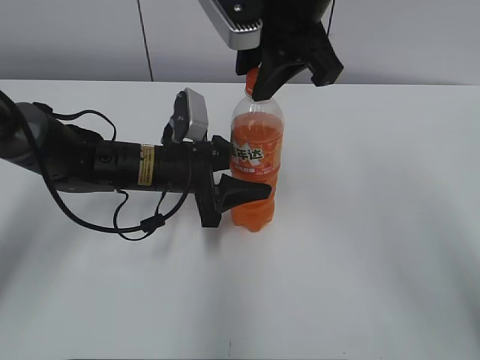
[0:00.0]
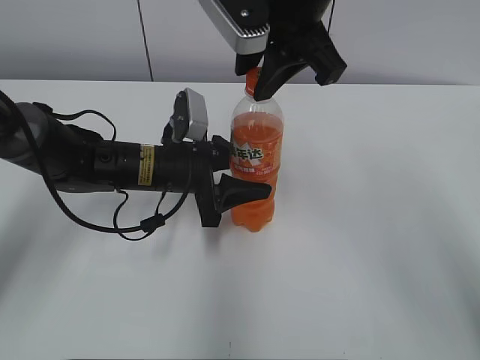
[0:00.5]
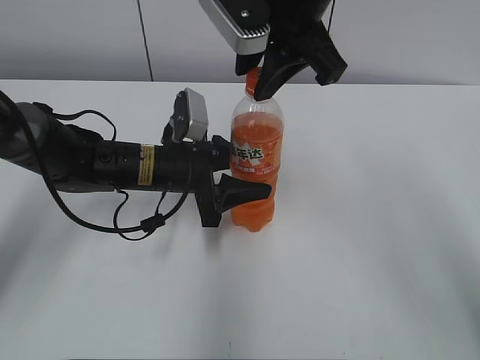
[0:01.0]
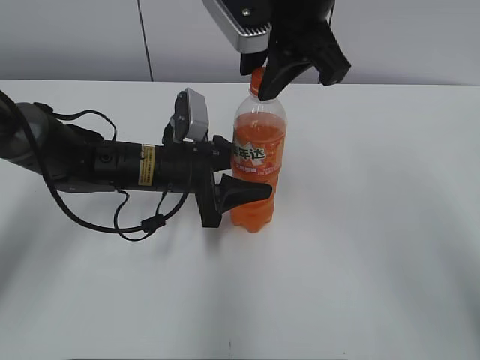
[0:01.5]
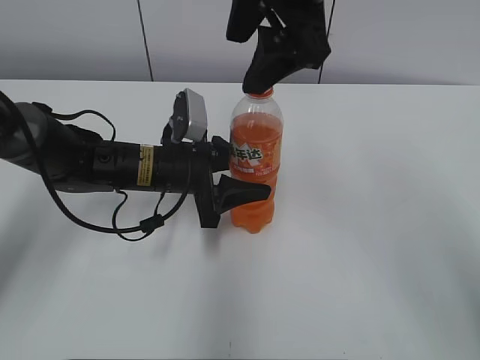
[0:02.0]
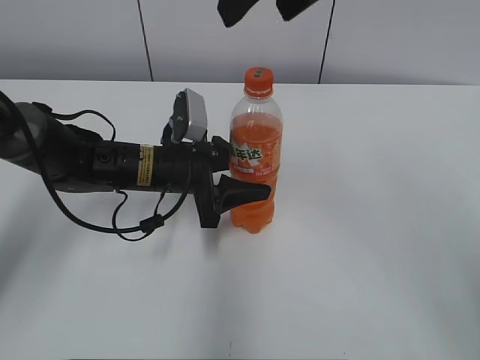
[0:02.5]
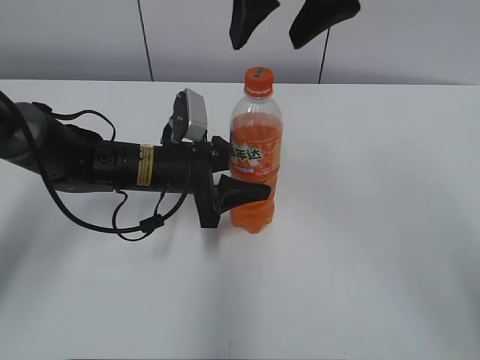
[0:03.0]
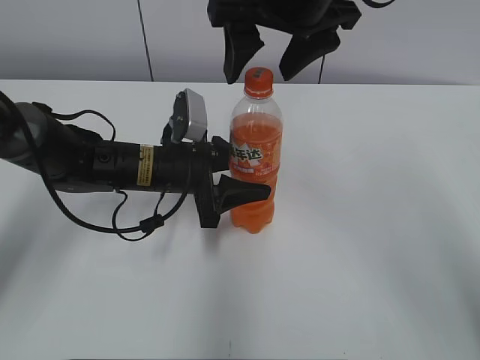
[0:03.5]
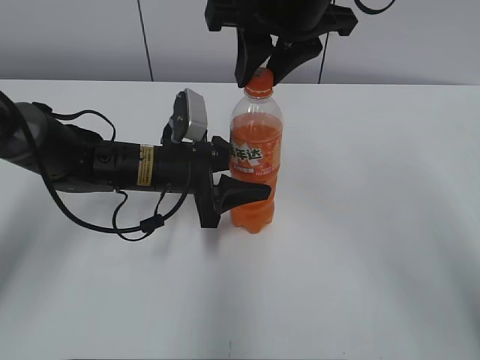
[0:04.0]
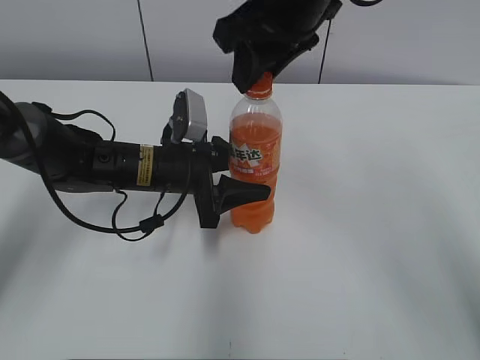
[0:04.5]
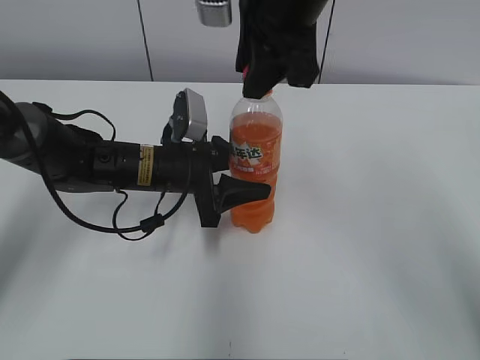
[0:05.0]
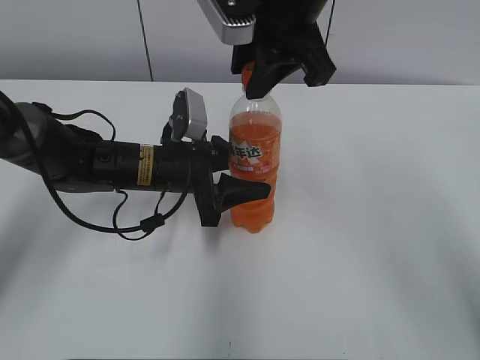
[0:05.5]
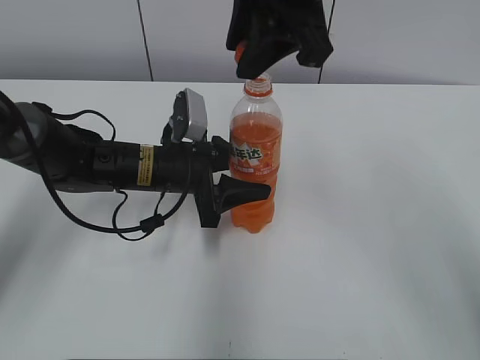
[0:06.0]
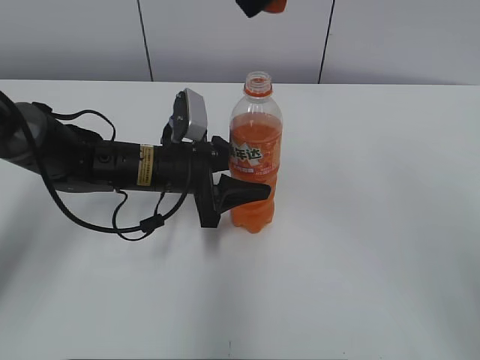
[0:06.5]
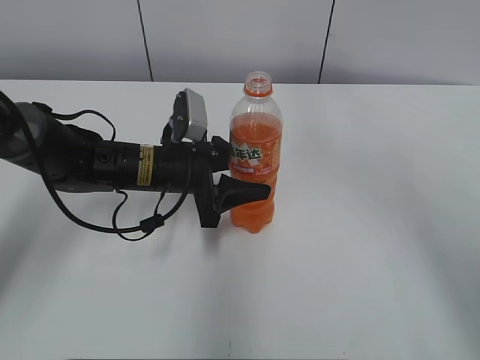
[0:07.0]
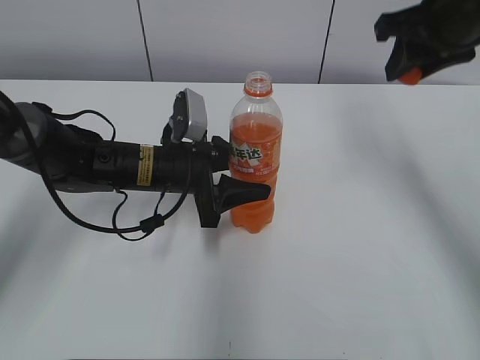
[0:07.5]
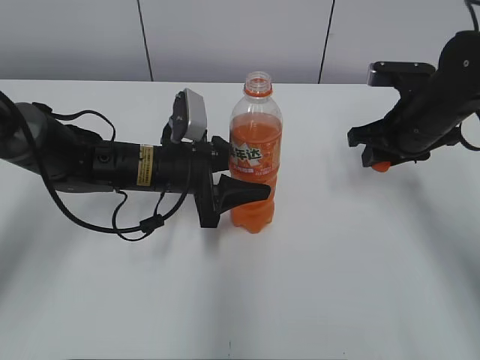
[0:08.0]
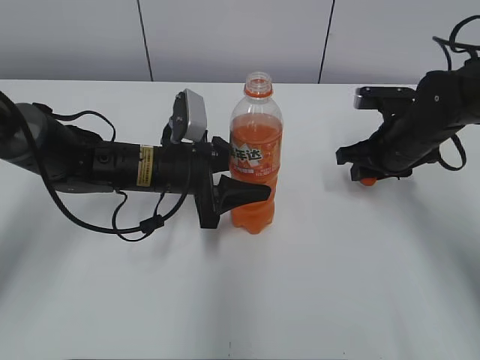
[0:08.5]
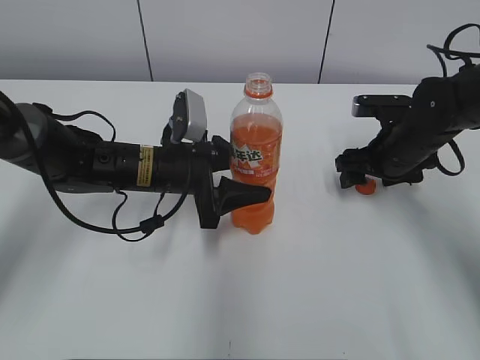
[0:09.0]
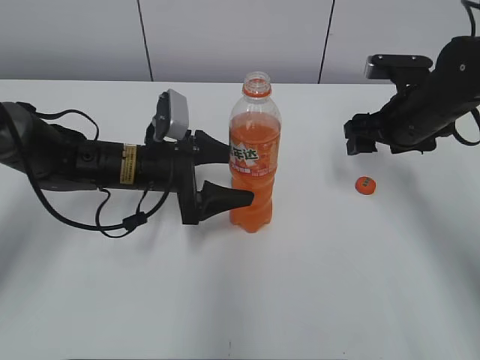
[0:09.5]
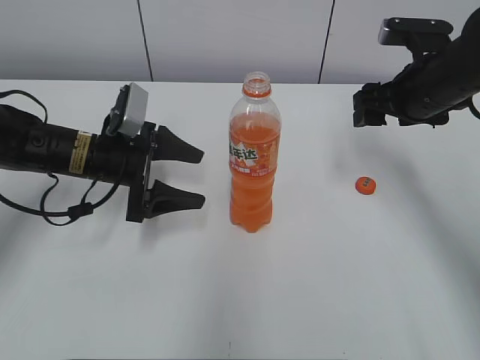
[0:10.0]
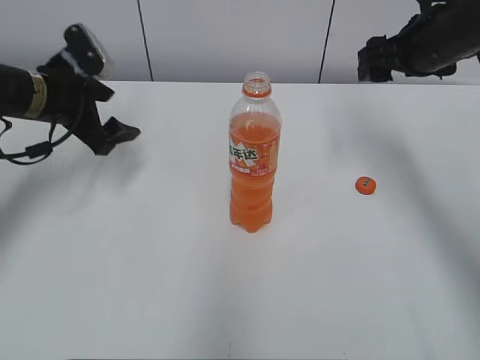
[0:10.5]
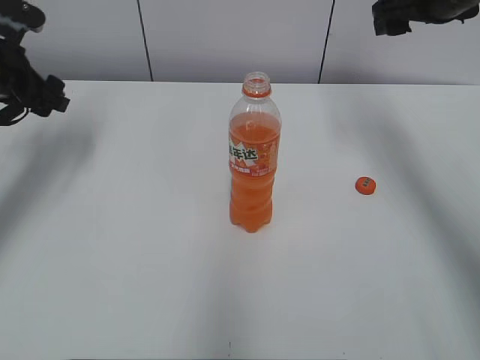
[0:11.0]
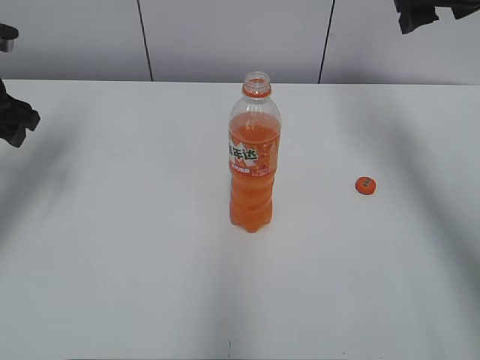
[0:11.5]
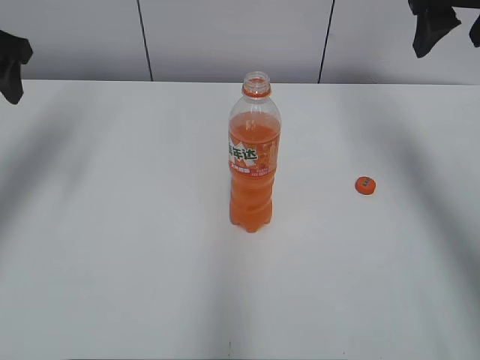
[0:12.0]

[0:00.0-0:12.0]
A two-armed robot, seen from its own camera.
Step, 0:00.0 to 0:05.5: Twist the bottle cap with the right hand.
Step, 0:06.0 to 0:08.5: Place the bottle cap on the right.
0:00.0 to 0:02.0: The right gripper opens up.
0:02.0 to 0:04.0: The right gripper closes up.
0:06.0 to 0:08.0: The right gripper goes some 25 cm downward and to the right.
0:08.0 to 0:10.0: The left gripper goes about 10 cm to the left, and opens its fingers, while the right gripper opens up.
0:10.0 to 0:12.0: The right gripper goes some 15 cm upward. The left gripper shifts roughly 25 cm upward and to the left.

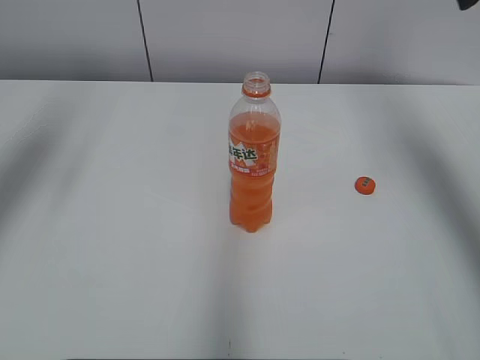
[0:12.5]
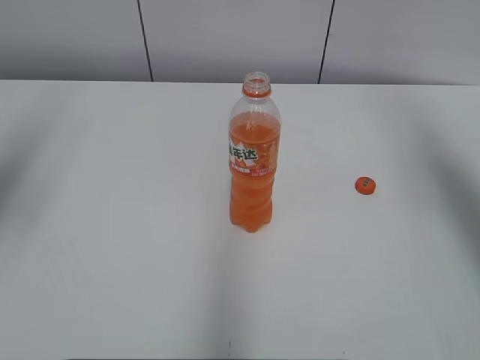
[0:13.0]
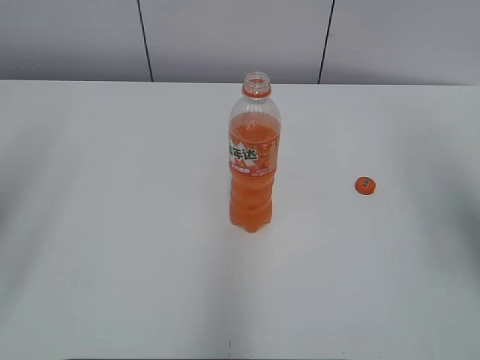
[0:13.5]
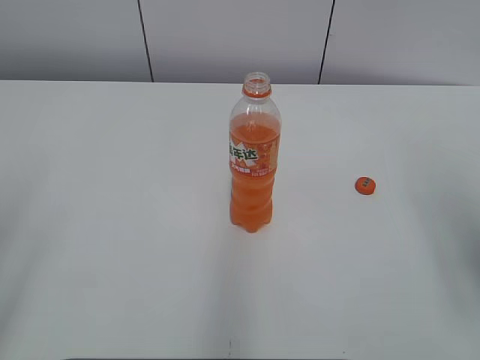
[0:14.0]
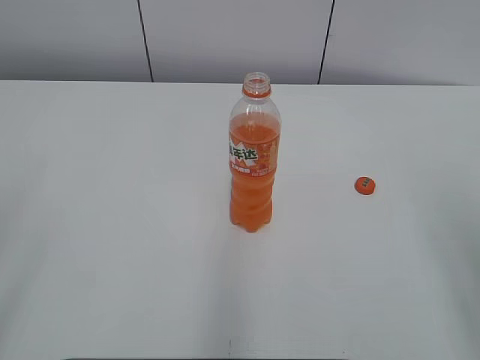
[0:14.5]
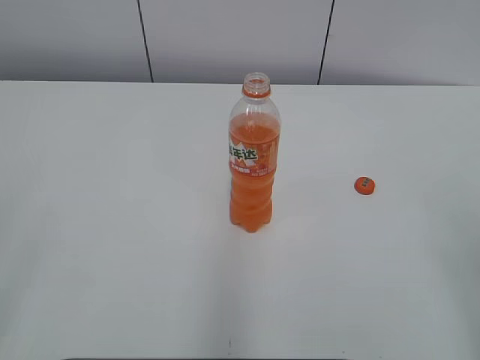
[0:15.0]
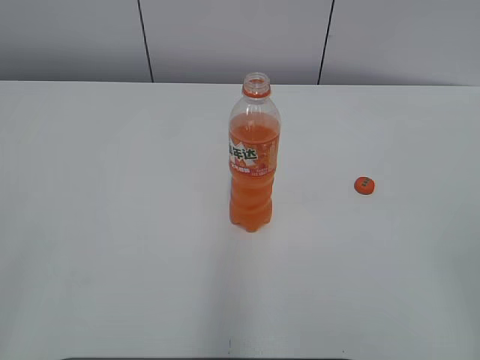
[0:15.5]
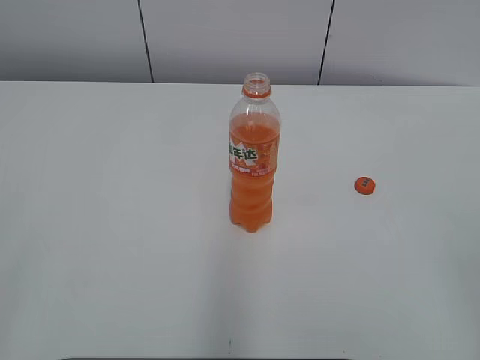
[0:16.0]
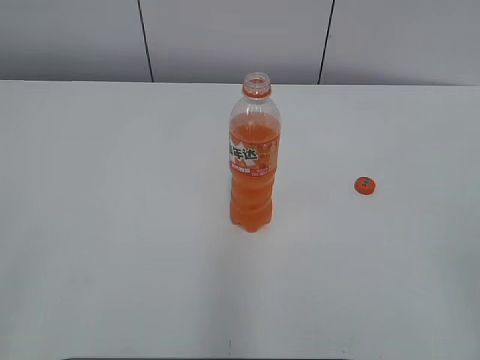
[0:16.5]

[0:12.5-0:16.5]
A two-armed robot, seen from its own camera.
0:12.5 to 0:14.5: The right gripper goes roughly 25 cm backward and downward; the left gripper goes some 25 cm backward.
